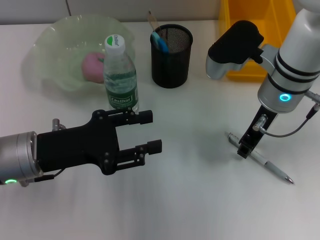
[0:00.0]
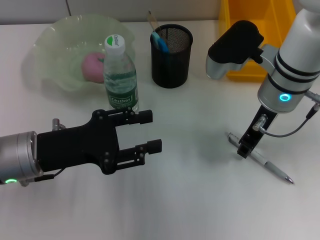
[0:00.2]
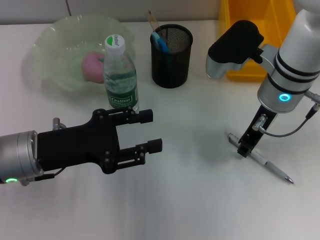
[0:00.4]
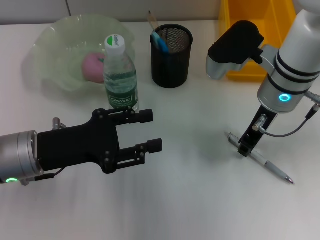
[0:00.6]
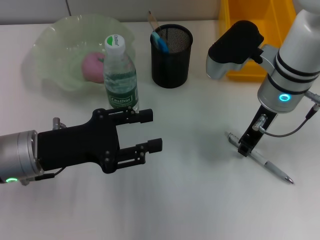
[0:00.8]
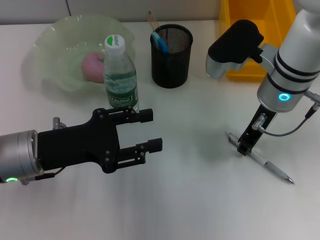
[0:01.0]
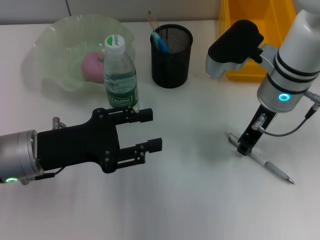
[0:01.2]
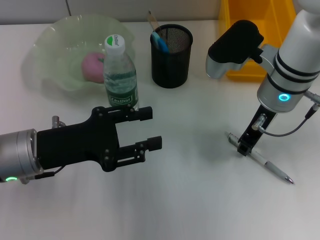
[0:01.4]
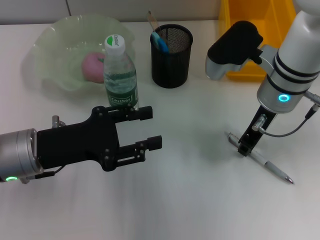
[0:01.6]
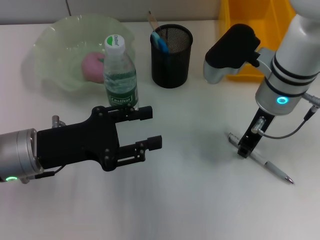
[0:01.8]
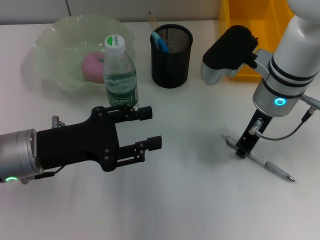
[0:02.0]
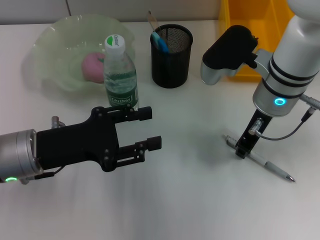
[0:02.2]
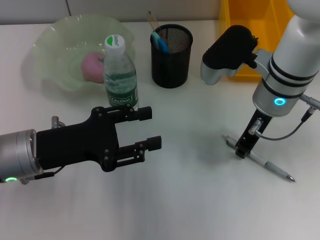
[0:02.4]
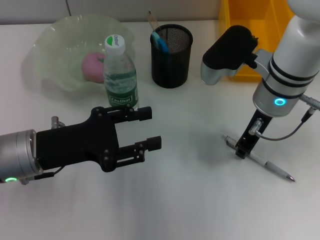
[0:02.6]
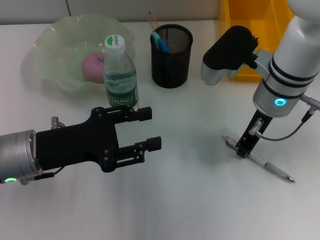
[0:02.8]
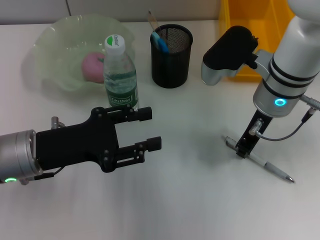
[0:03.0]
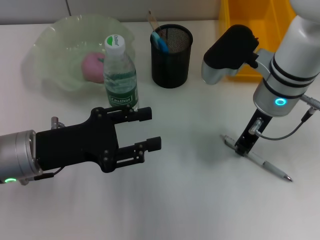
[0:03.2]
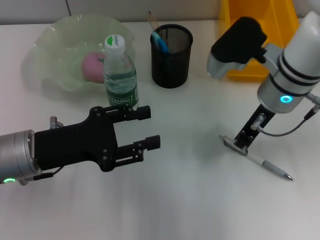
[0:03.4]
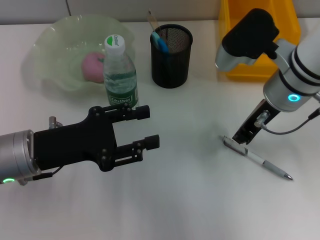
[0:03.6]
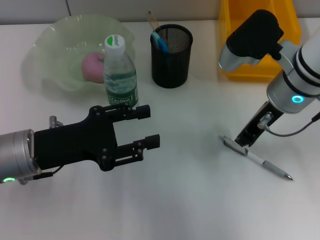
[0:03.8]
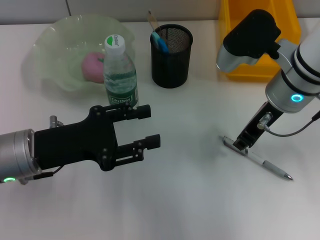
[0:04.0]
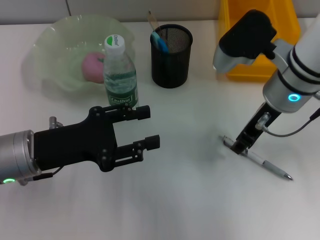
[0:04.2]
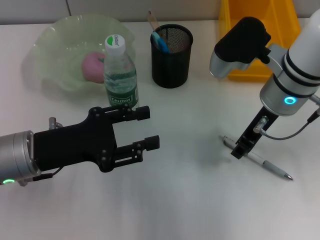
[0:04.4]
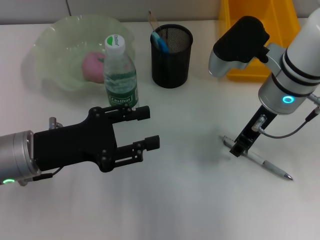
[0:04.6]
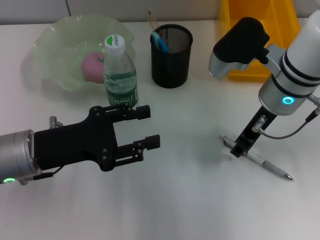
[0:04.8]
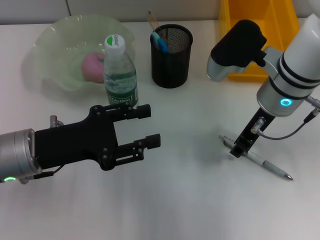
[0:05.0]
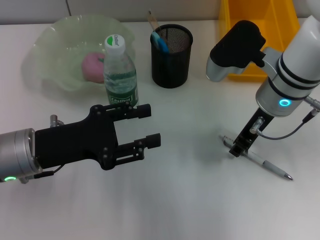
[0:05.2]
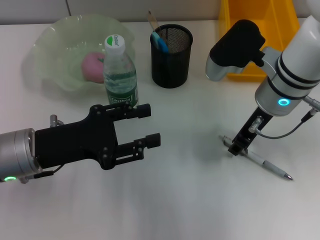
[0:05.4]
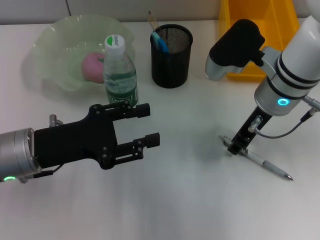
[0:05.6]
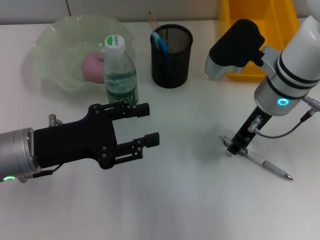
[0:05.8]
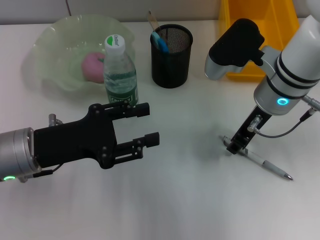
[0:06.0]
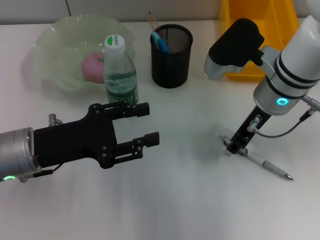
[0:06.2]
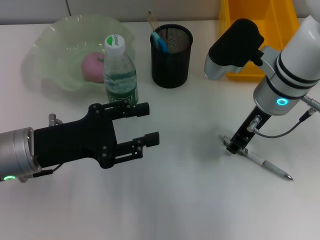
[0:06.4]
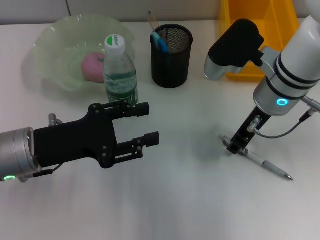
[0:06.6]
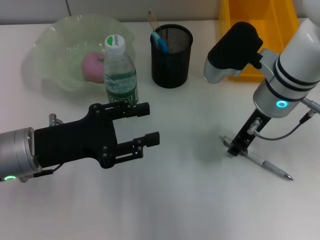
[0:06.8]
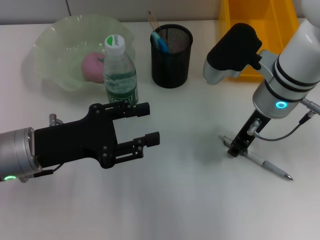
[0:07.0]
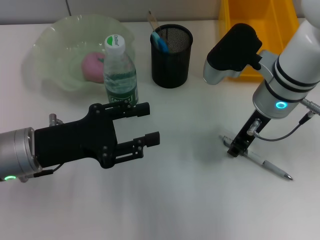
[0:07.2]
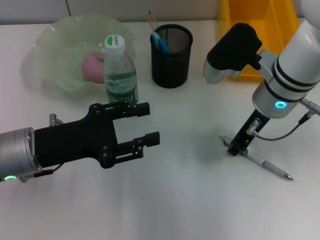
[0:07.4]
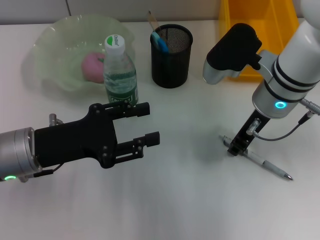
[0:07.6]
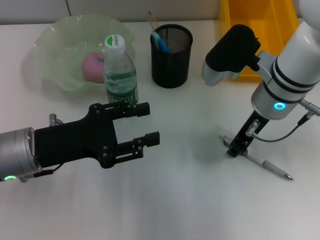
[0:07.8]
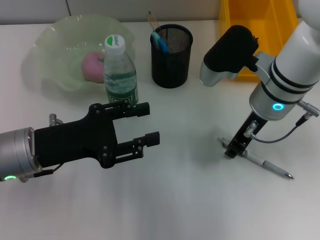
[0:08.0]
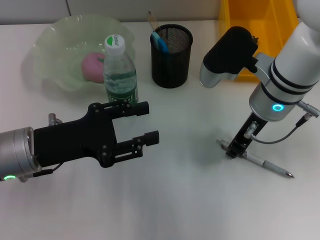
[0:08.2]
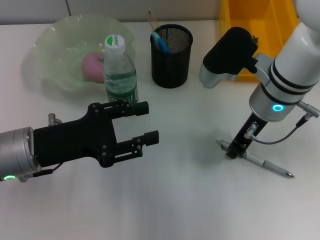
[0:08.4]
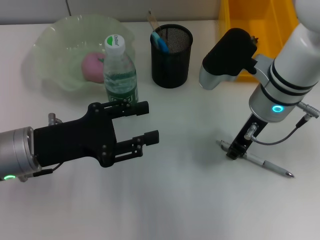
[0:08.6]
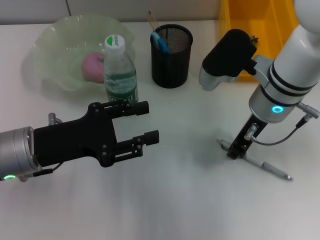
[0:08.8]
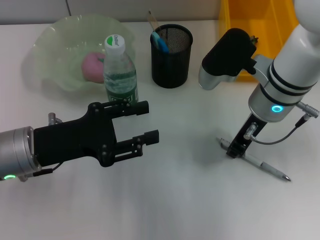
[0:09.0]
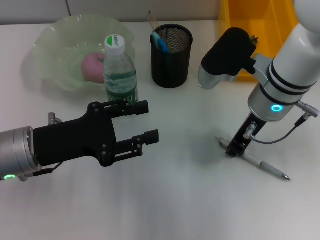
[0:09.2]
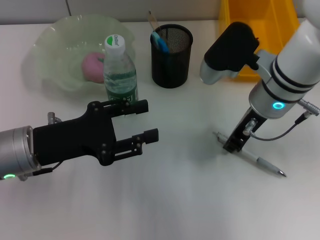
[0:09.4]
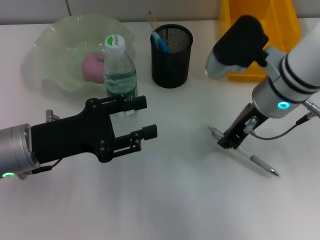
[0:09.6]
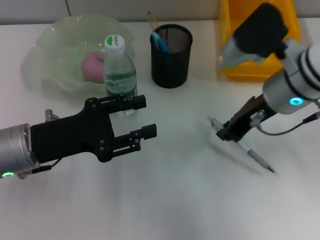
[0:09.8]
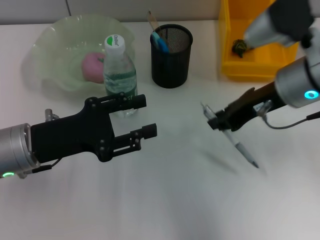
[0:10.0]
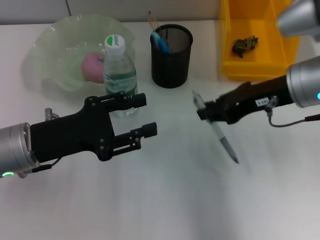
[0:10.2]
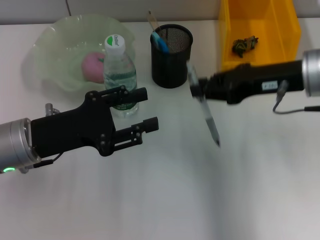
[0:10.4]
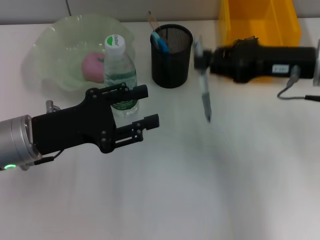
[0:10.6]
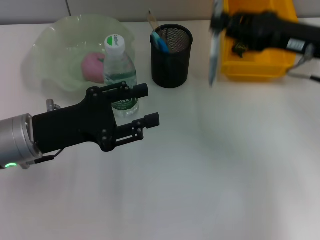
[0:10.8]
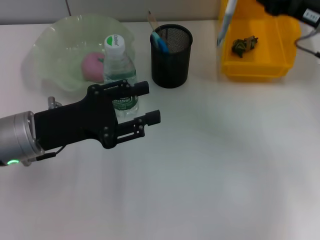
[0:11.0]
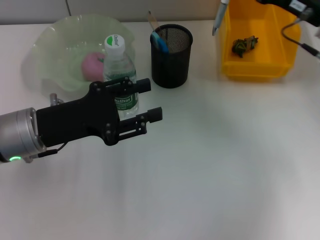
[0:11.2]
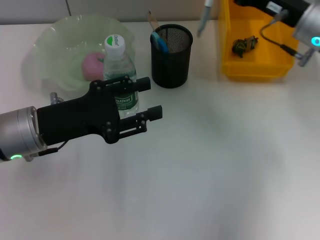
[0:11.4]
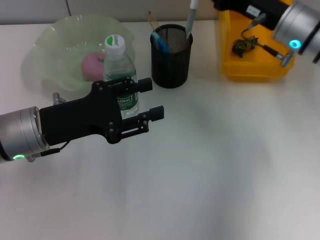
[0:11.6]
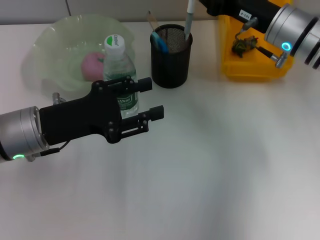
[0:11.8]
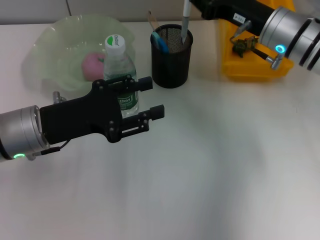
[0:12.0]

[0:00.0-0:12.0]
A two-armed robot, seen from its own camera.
Step, 0.0 to 8.4 s: Grab the gray spring-action pen with the right hand.
0.0 to 3.0 s: Both grippers stay about where they are.
3.0 to 4.4 s: The right gripper opens up.
4.4 to 6.0 s: Both grippers stay put.
6.0 to 9.0 s: Neither gripper changes place.
9.0 to 10.4 s: The right gripper heads to the right, covering approximately 5 cm.
10.4 to 12.0 s: The right gripper travels forward by about 5 cm.

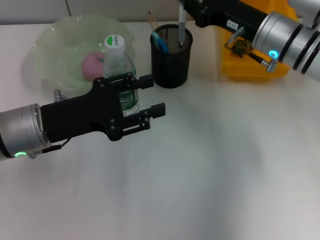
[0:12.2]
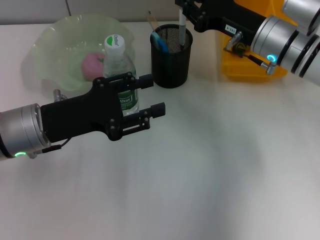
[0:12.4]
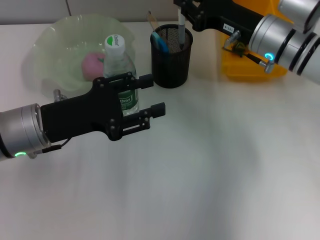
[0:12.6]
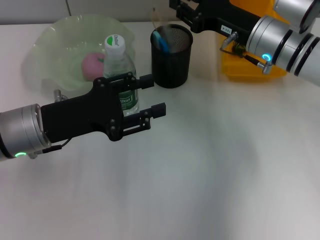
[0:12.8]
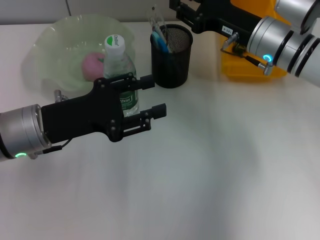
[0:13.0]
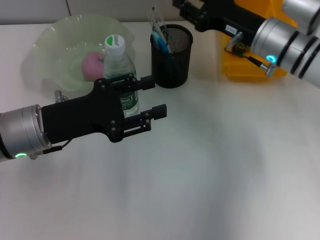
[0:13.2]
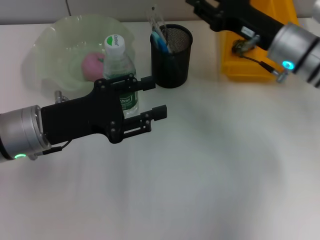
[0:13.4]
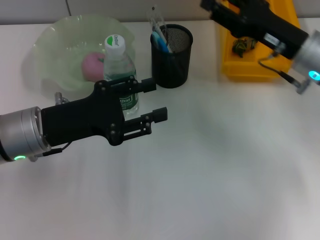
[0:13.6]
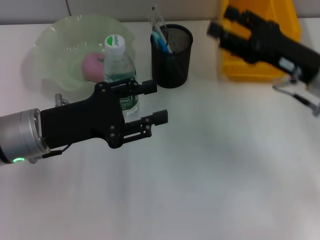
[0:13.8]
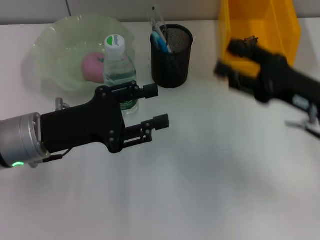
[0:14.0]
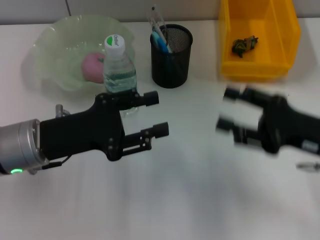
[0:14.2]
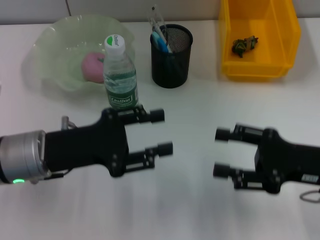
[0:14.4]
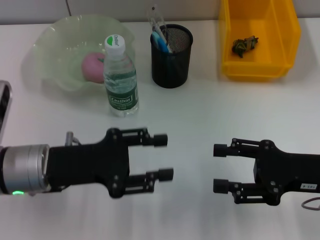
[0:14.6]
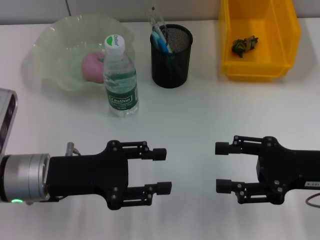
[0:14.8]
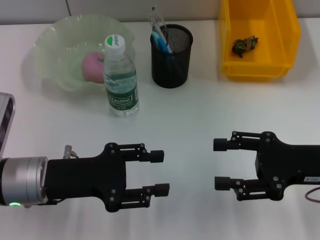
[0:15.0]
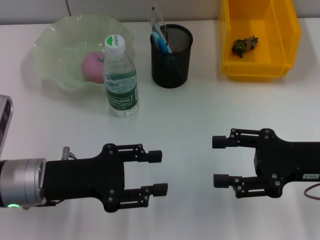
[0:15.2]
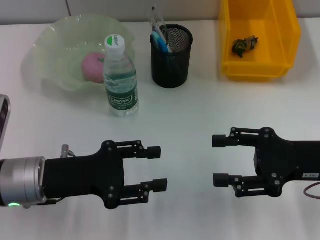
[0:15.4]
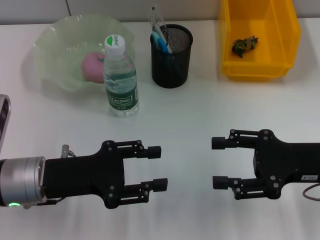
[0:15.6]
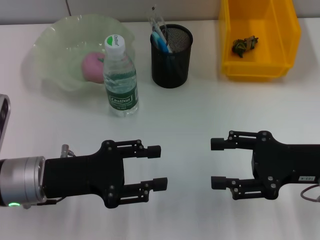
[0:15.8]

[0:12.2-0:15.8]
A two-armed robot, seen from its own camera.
12.2 to 14.0 s: The right gripper shifts some 15 cm backward and to the right, and opens its fingers.

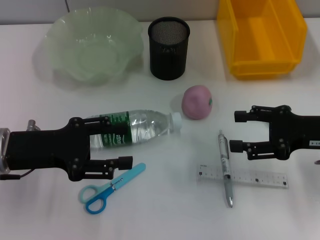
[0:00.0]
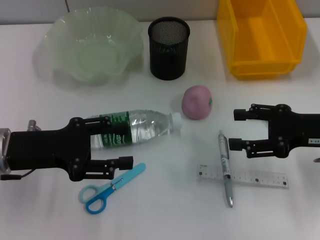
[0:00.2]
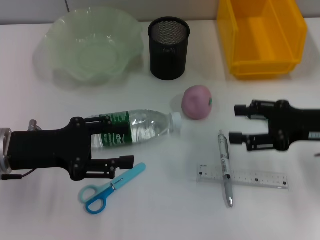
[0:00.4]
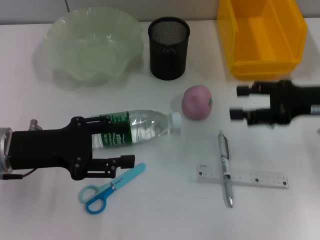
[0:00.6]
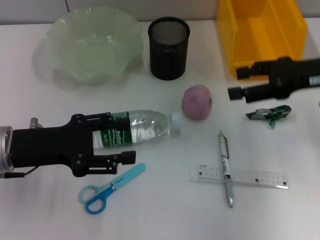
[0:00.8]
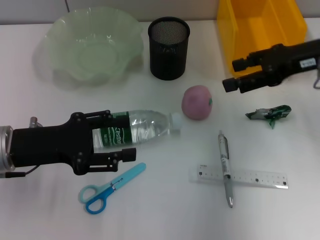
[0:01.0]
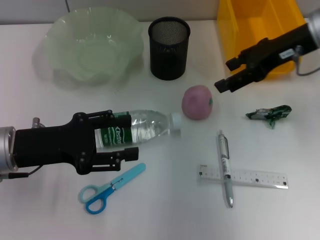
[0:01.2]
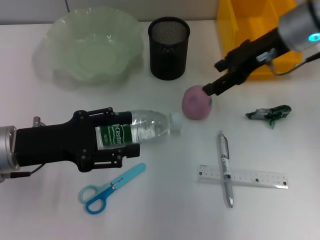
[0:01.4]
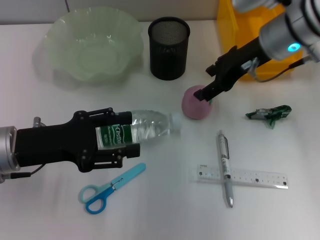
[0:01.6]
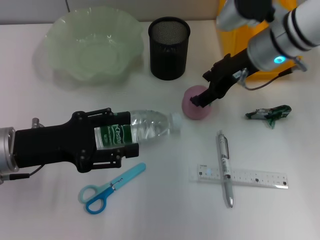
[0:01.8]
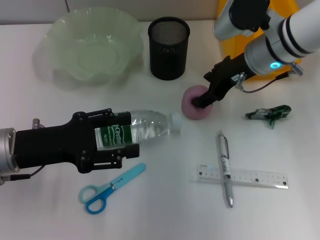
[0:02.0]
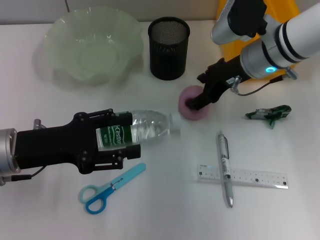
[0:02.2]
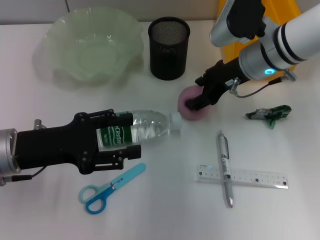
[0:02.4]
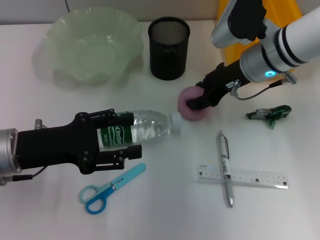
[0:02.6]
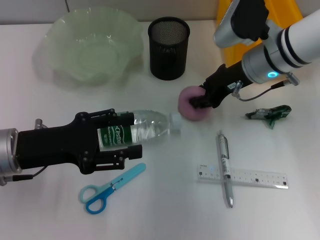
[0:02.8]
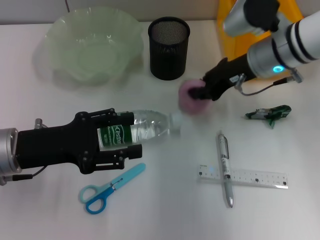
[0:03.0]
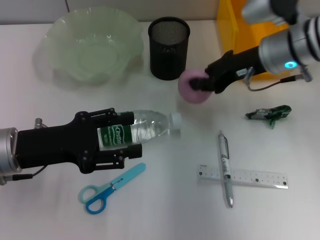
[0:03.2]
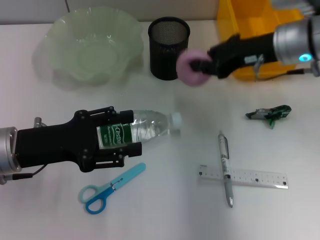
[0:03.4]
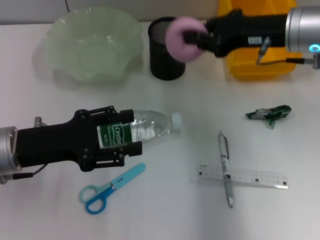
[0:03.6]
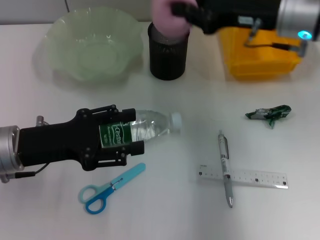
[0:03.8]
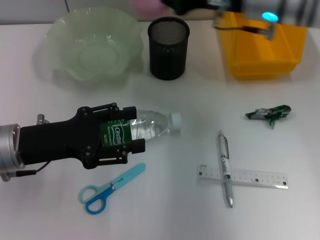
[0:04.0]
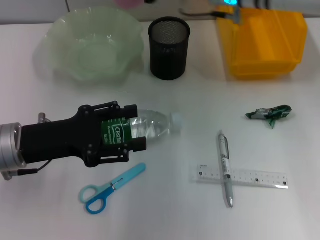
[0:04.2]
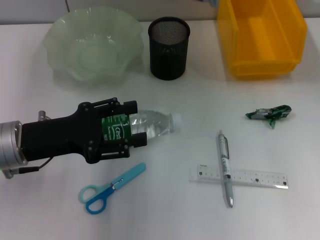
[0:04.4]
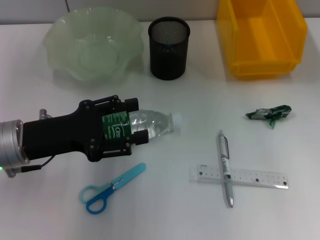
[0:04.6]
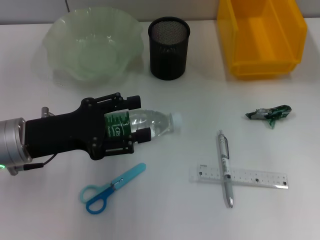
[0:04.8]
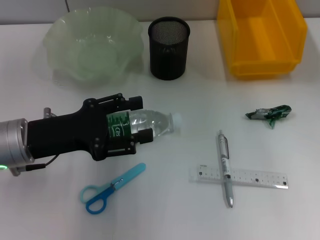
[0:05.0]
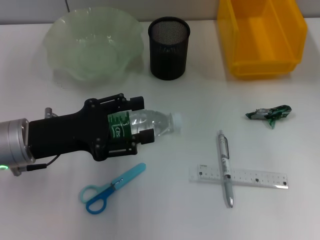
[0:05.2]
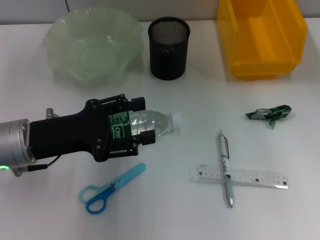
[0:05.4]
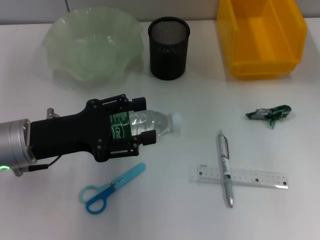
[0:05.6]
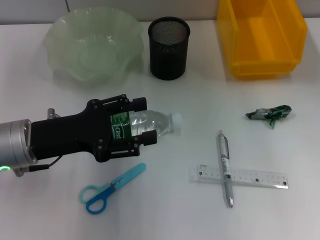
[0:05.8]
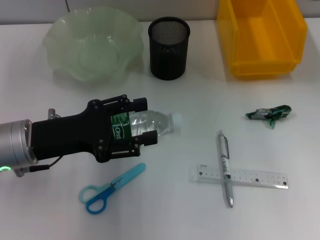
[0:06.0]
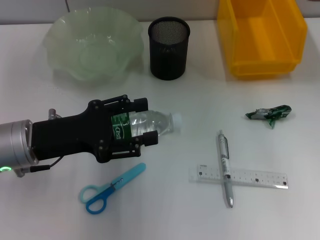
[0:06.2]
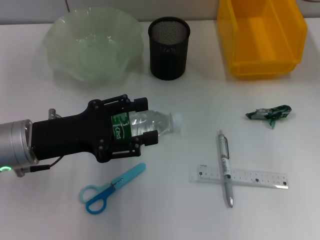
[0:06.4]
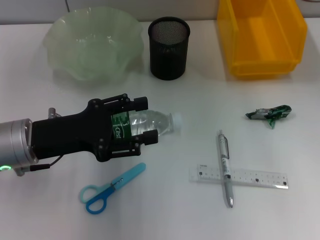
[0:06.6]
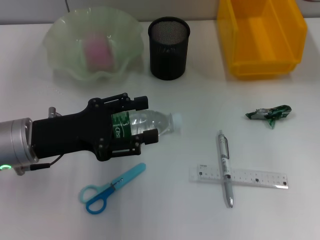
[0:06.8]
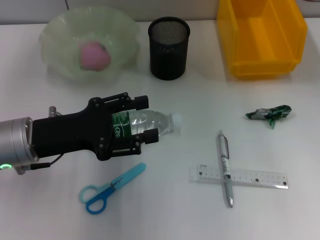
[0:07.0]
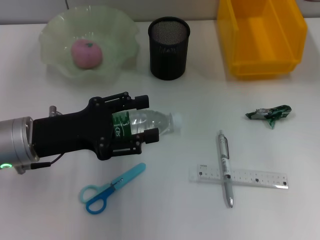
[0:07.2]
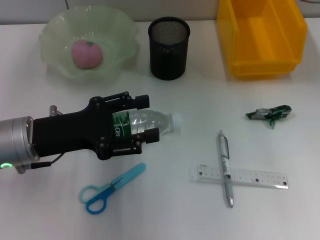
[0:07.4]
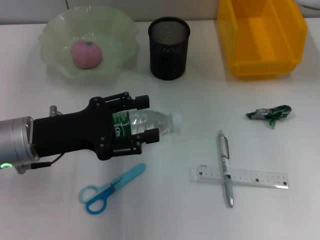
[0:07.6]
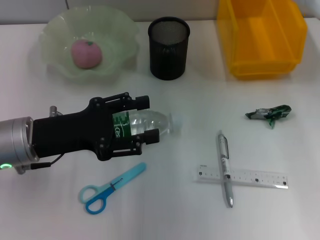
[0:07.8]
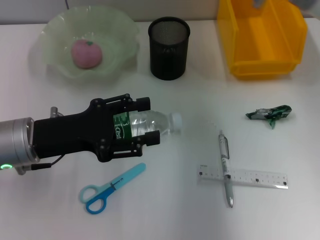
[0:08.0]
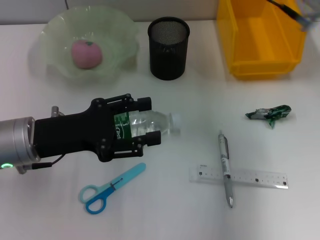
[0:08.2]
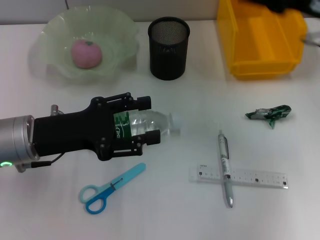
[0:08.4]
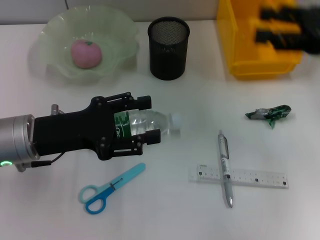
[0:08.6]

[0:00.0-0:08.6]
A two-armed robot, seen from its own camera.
Step, 0.0 to 2.8 s: Grab the peach with the right hand.
Step, 3.0 to 7.0 s: Place the peach into the fruit bowl with the right hand.
0.0 to 1.4 s: The right gripper shifts approximately 20 cm forward, upward and to the left.
1.4 to 2.8 s: The right gripper is displaced downward by approximately 5 cm, and closes.
2.8 to 4.4 s: The right gripper is displaced to the left, upward and forward by roughly 15 cm, and closes up.
4.4 to 5.8 s: There are only small adjustments of the grippers.
5.8 to 7.2 s: The right gripper opens.
7.2 to 8.6 s: The right gripper goes roughly 30 cm to the right and backward.
